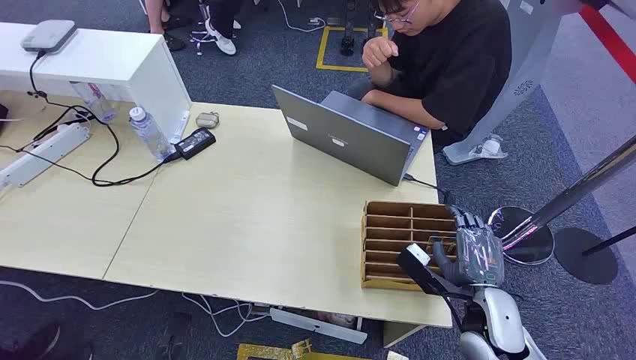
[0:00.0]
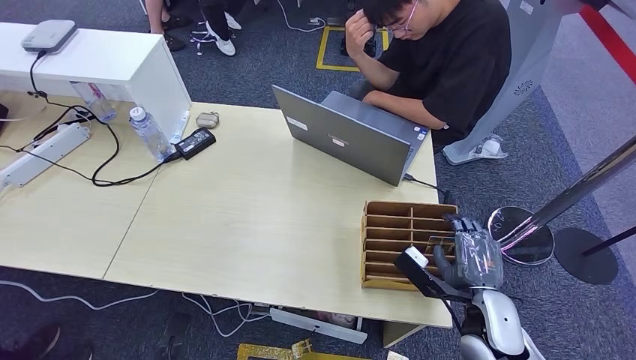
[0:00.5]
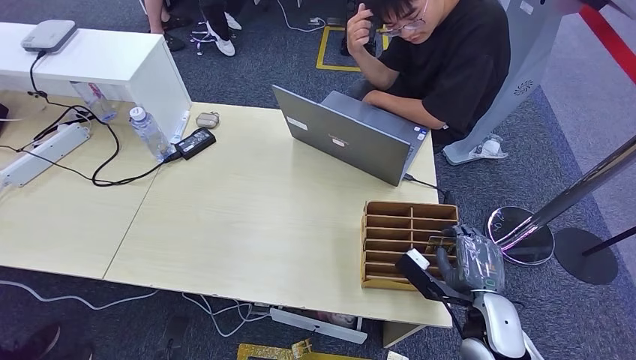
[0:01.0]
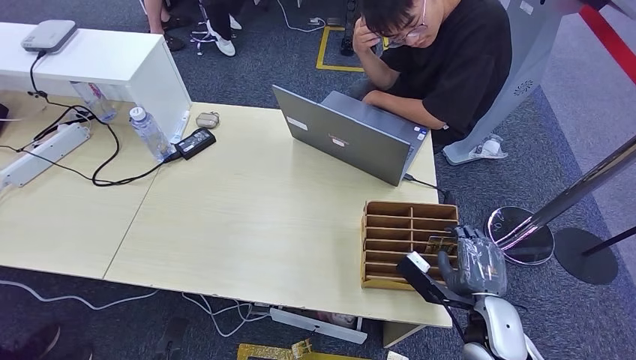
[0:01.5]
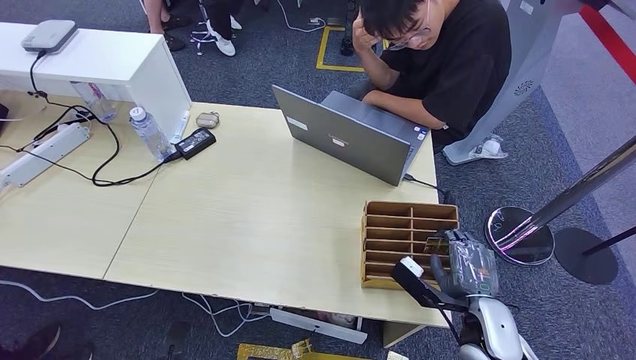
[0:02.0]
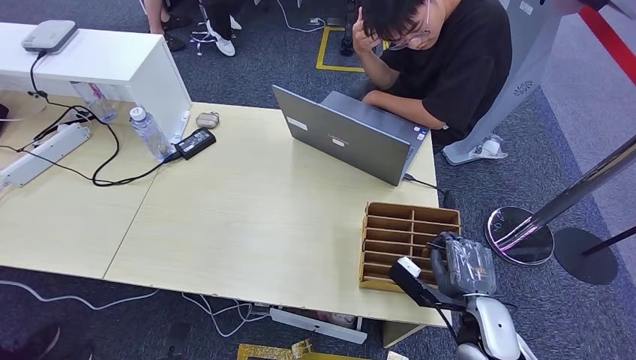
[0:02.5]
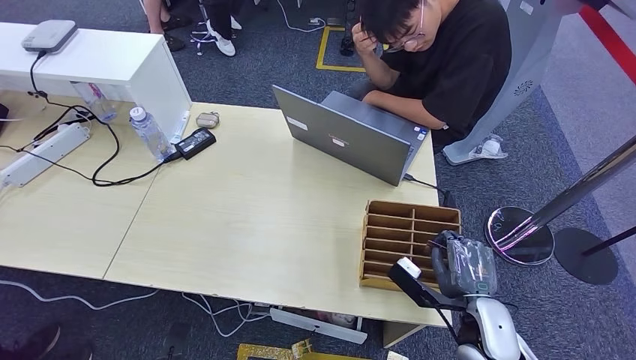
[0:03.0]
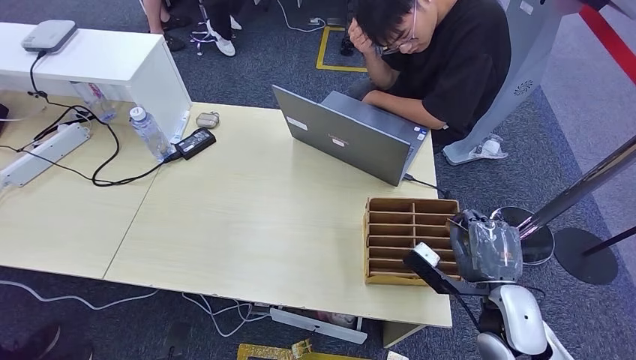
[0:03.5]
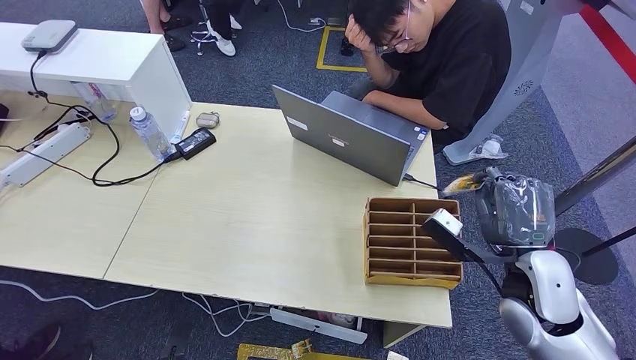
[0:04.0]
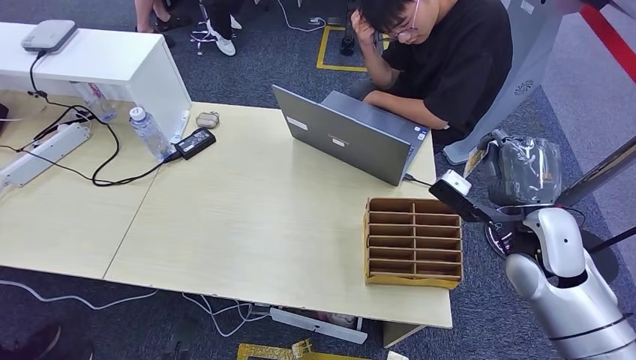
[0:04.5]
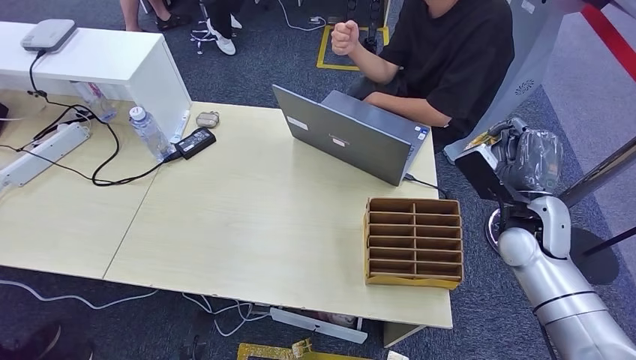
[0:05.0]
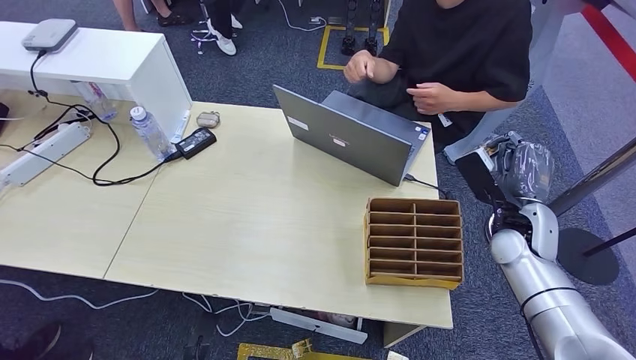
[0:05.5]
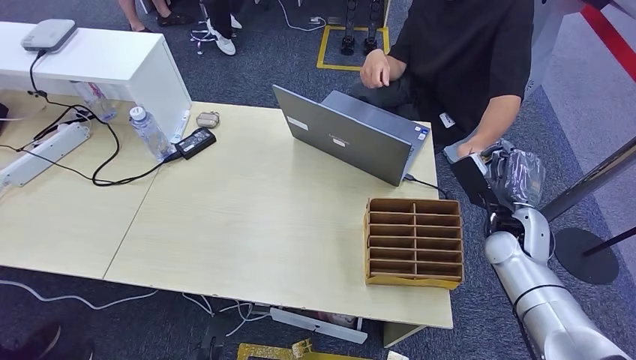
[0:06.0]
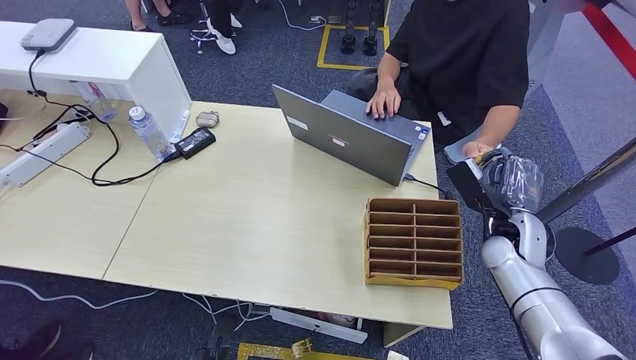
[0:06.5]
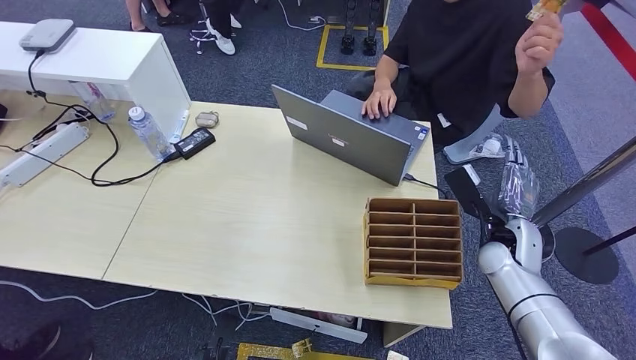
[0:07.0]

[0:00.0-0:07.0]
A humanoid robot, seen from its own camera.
Step, 0:00.0 to 0:03.5: Pick up the key card from the card box.
Step, 0:04.0 to 0:07.0: Hand the key card to the target.
0:02.0 to 0:03.5: The hands make only small movements.
0:03.5 to 0:05.0: The right hand is displaced forward and upward by some 15 cm.
0:05.0 to 0:07.0: The right hand is displaced downward by some 5 cm. The left hand goes approximately 5 cm to the right.
